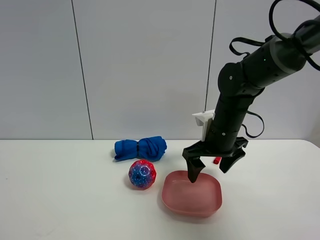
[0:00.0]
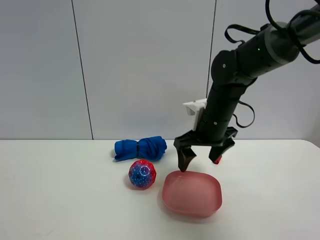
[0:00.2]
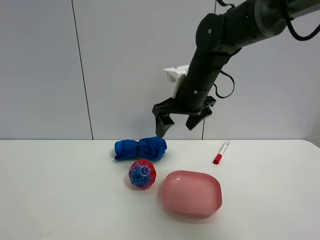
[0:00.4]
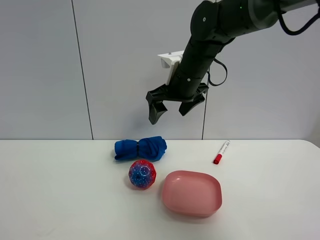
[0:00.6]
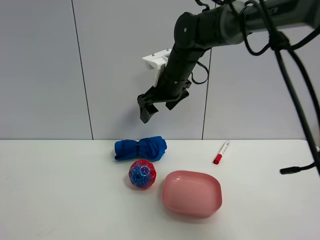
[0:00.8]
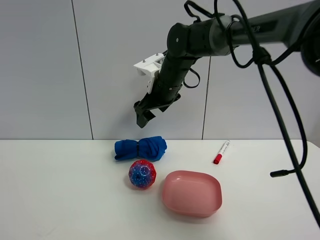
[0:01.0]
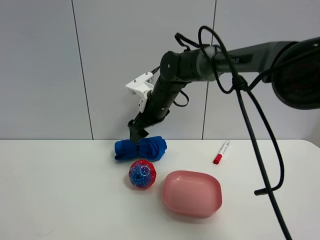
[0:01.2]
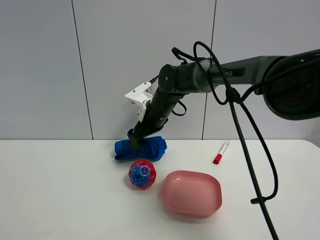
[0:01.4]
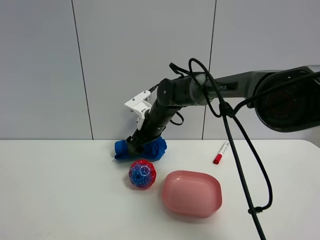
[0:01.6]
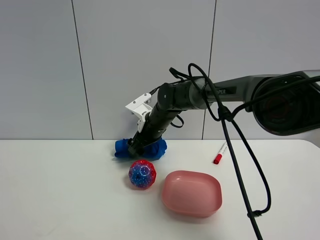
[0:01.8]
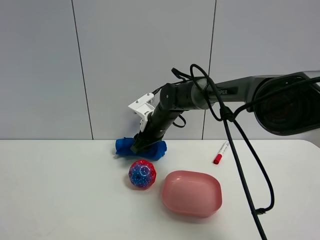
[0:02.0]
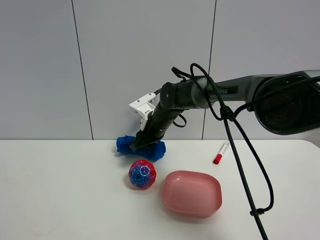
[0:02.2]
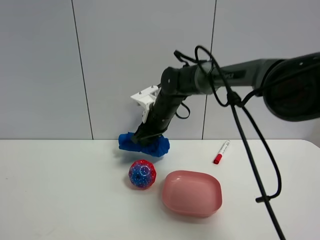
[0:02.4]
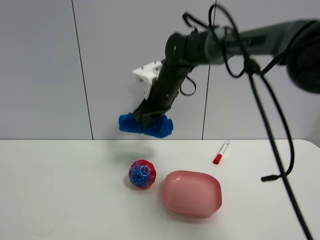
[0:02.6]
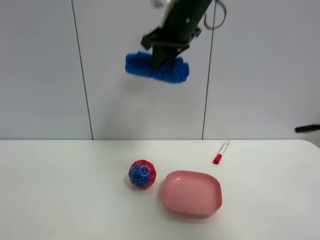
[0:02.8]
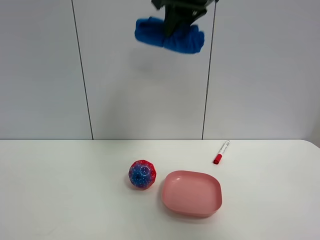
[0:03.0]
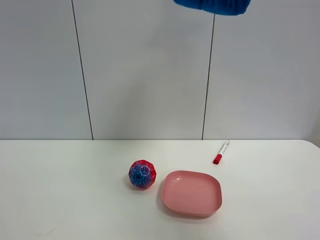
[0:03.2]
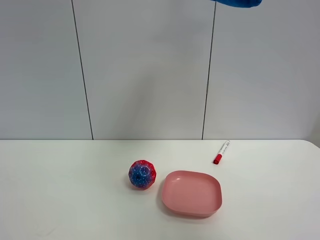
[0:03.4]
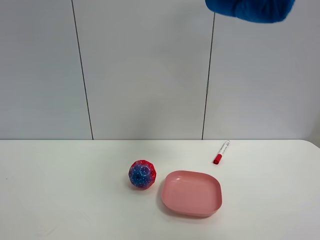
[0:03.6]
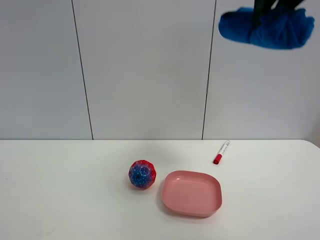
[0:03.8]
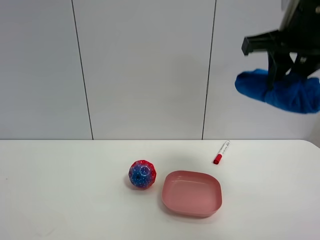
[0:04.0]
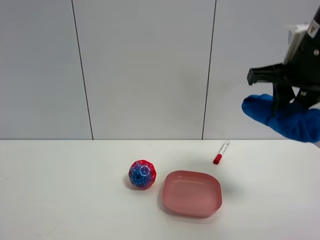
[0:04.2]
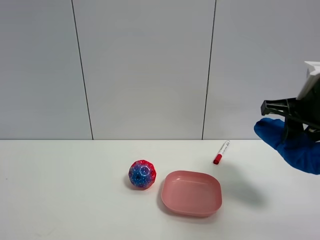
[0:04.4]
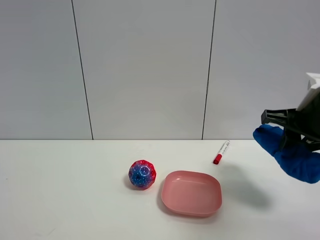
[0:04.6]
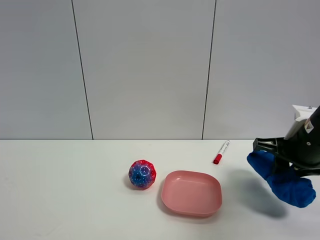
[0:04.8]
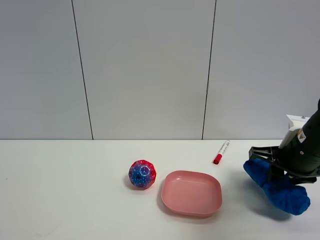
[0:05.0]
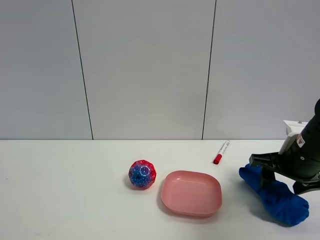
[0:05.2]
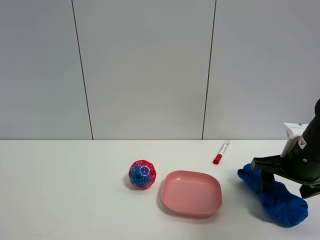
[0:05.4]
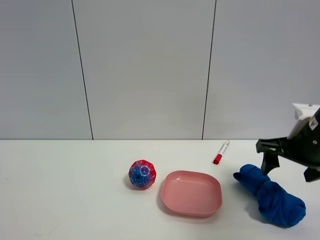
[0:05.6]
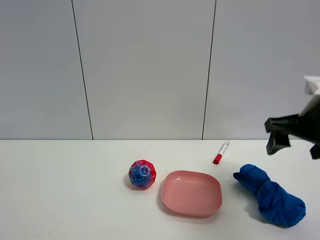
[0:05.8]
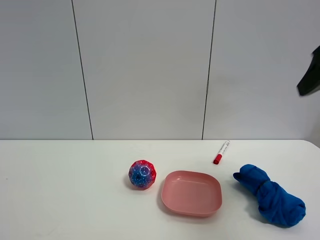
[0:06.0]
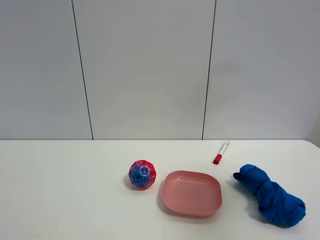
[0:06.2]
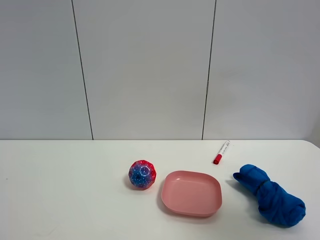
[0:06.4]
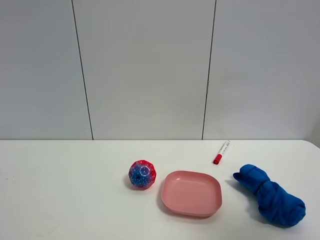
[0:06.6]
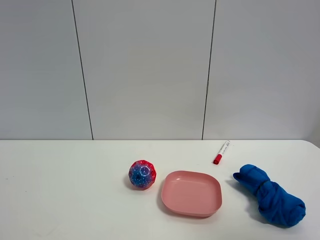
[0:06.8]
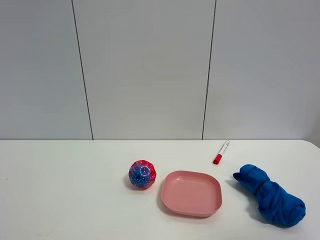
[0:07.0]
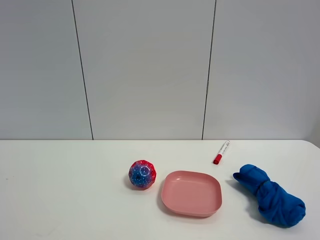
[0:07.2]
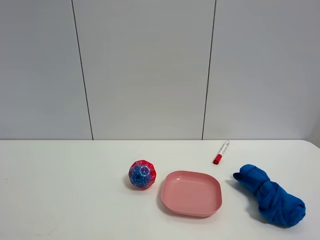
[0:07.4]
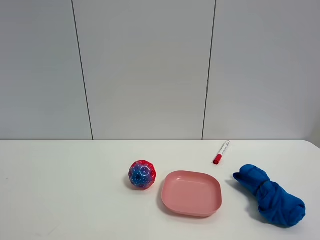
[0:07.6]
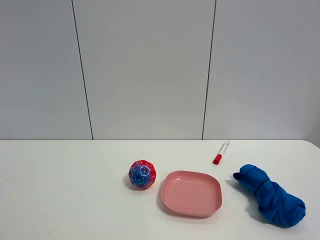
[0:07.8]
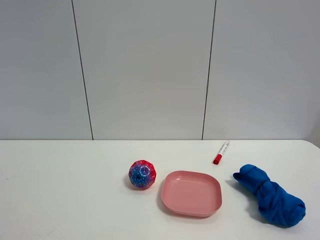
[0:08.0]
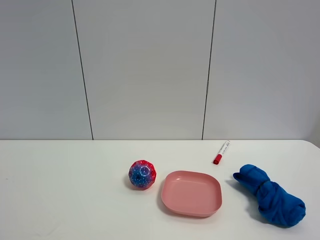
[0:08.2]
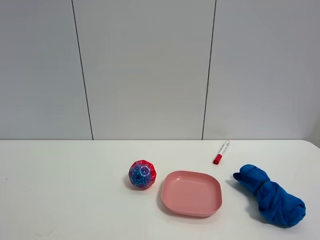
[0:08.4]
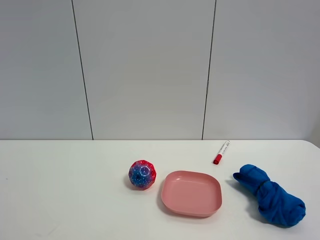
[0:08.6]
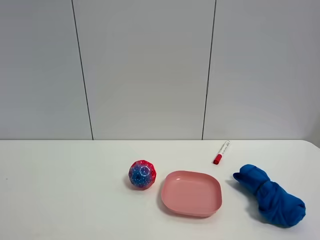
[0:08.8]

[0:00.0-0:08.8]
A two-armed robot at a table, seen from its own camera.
Task of the whole recording: the gripper move the object.
Step, 0.0 to 2.0 s: Grasp the blue towel with the right gripper.
Step, 2.2 to 5.6 s: Place the blue towel on the table with the right gripper.
0.0 to 1.4 s: The right gripper moves to the left and forward, about 15 cm.
1.4 to 3.0 s: The right gripper moves upward, some 30 cm, and closes up.
3.0 to 4.4 s: The right gripper heads downward, to the right and backward, covering some 25 cm.
4.4 to 5.8 s: The right gripper goes downward and returns, about 10 cm each way, and opens.
5.8 to 7.4 s: The right gripper moves backward, approximately 30 cm.
7.4 to 8.8 s: Both grippers stay put.

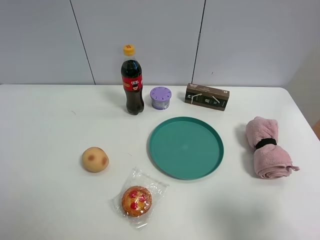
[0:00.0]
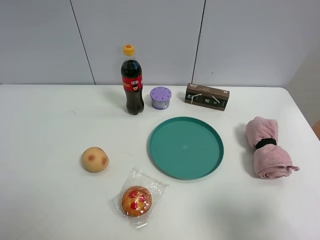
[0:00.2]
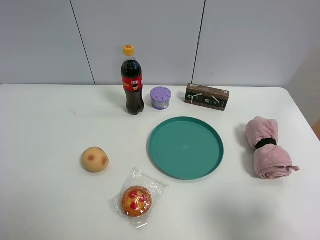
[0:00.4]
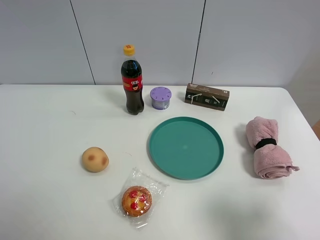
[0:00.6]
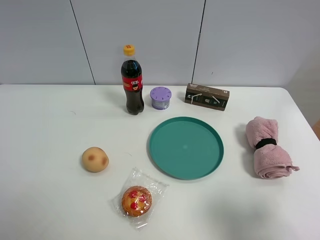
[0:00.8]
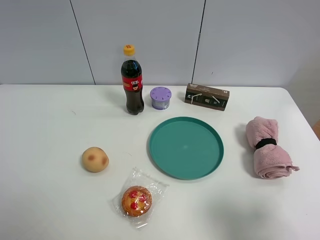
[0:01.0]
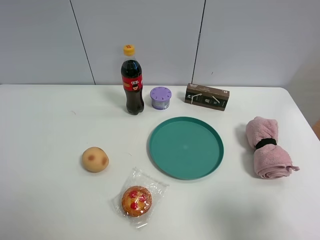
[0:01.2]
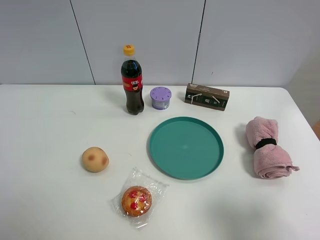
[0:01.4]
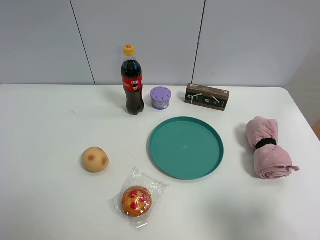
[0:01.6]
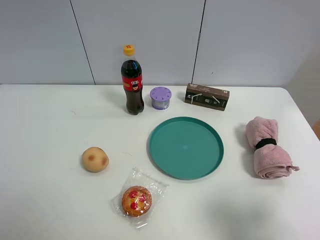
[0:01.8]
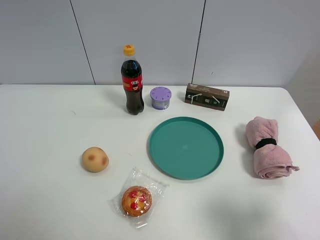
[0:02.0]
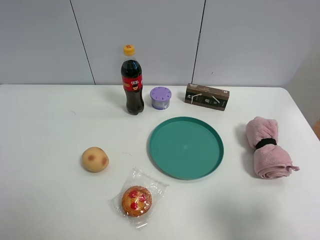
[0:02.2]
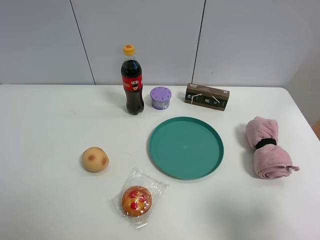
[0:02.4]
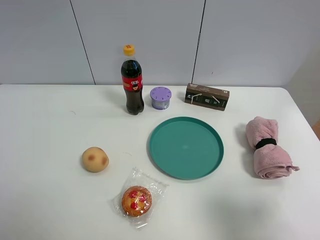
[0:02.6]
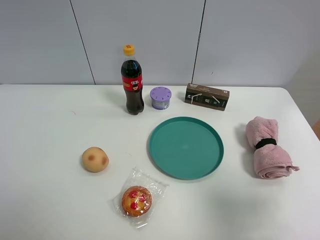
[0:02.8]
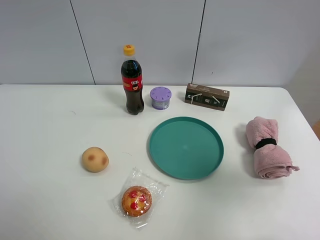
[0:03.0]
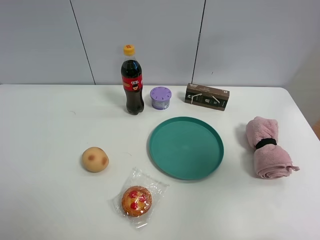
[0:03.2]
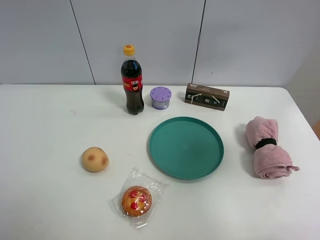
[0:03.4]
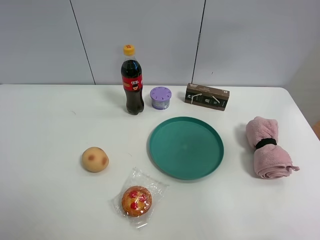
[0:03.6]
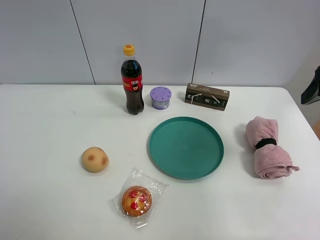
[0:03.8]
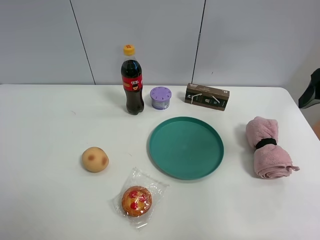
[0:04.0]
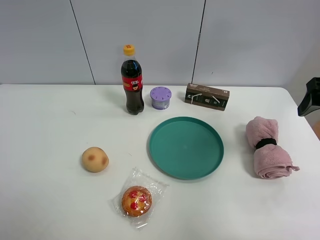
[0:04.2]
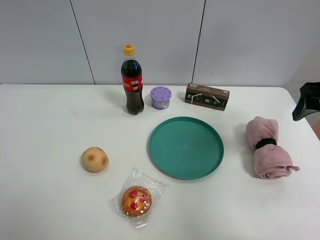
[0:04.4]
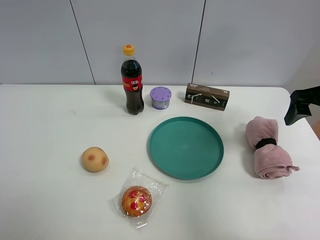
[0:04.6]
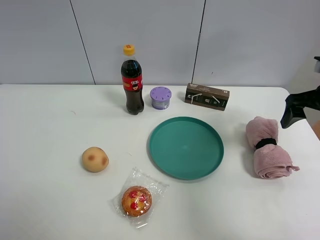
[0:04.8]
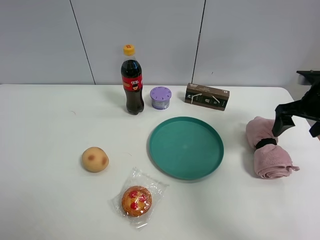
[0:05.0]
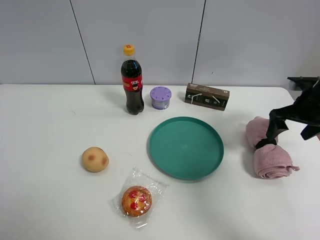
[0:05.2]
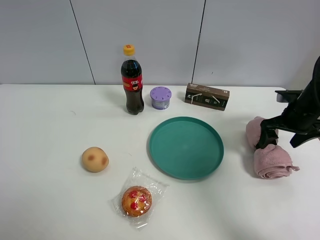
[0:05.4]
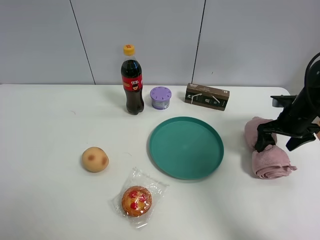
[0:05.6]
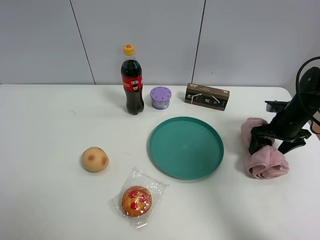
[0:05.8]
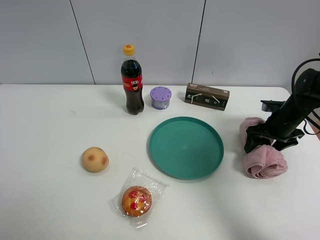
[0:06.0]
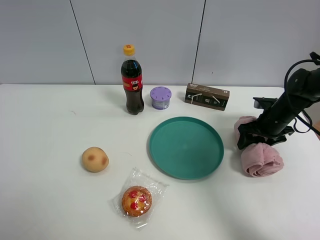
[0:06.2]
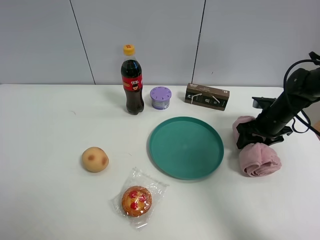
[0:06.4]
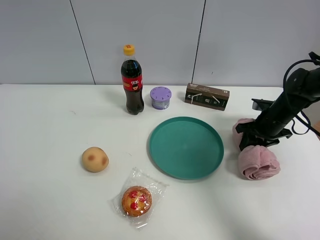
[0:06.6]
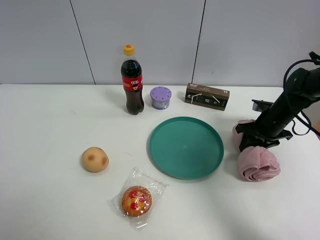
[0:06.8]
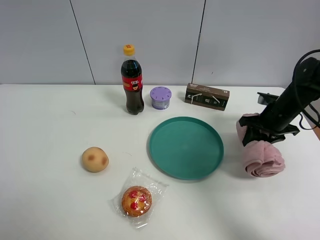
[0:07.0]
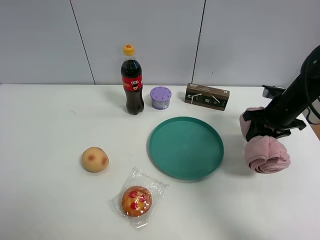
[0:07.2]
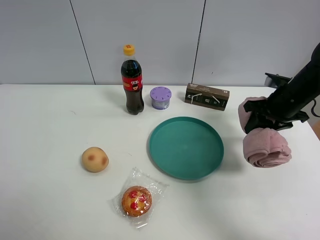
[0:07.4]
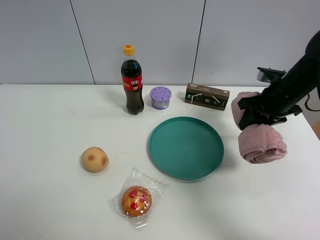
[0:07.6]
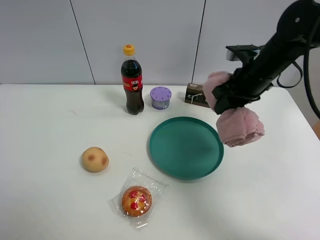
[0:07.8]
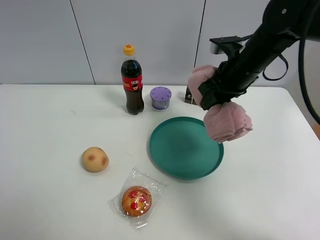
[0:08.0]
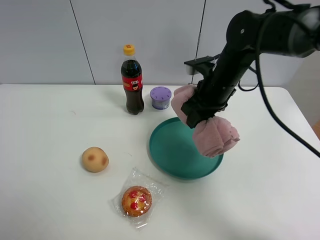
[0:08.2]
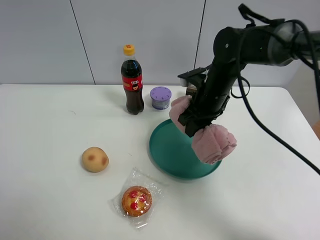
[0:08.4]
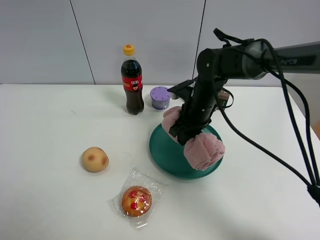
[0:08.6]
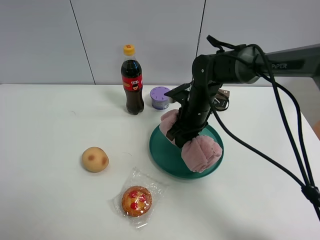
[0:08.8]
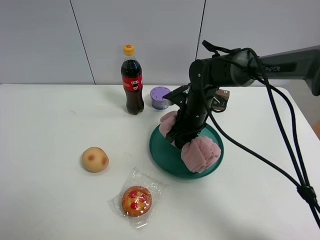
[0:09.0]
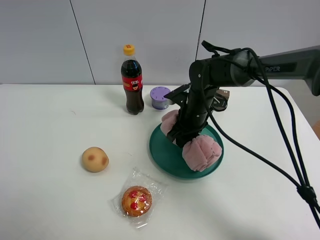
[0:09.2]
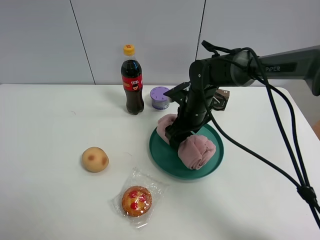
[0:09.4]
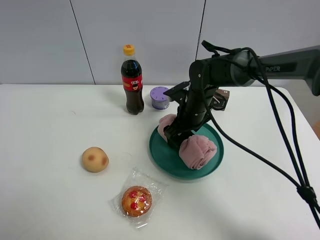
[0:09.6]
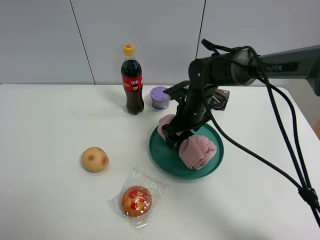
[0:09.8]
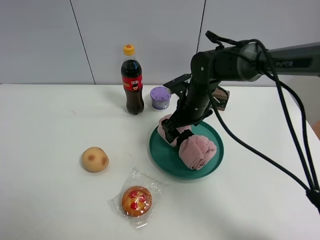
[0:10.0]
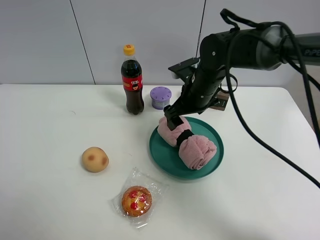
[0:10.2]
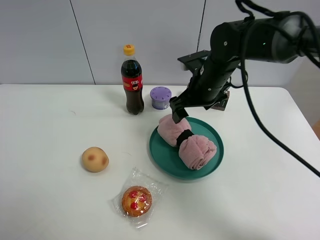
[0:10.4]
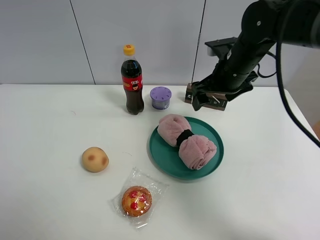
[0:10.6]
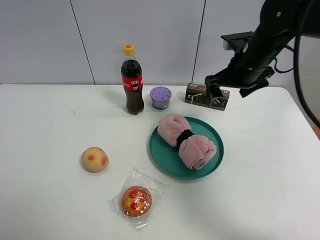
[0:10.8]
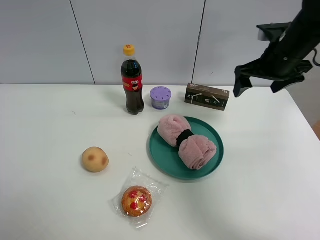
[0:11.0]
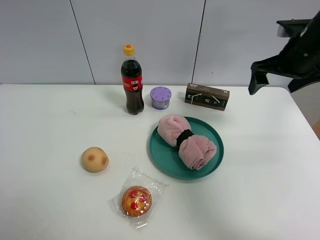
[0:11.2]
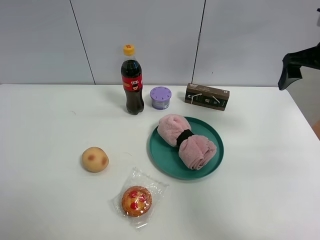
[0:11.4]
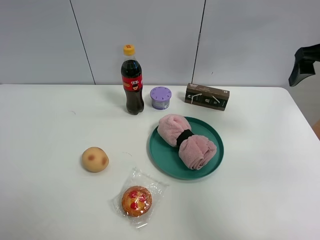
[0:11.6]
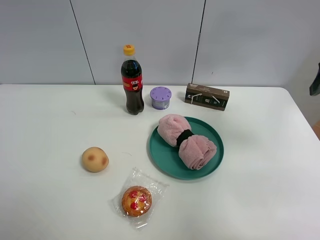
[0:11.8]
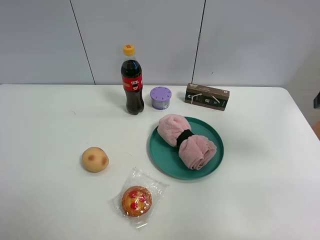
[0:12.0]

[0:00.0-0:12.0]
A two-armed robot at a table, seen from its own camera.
Task of the whole recording: the gripper move the object.
Step, 0.0 to 6.6 s: Grasp the pink towel with the right gripper.
Step, 6.8 to 9.4 s: Place the pink towel into the green bowl with the right gripper.
0.0 to 1.6 s: Both grippers stay about where they are.
1.6 to 3.0 s: The right gripper is displaced upward and forward by approximately 10 cm.
3.0 to 4.4 s: The right gripper shifts about 20 cm forward.
4.4 to 6.0 s: The right gripper is displaced downward and forward by roughly 20 cm.
6.0 to 7.6 s: The right gripper shifts some 15 cm upward and to the left, and closes its fingers.
7.6 to 9.0 s: The right gripper is displaced to the left and downward by some 20 cm.
9.0 to 10.4 s: The right gripper shifts about 10 cm upward, and opens its fingers.
10.4 to 12.0 s: The right gripper travels to the right, backward and upward by some 30 cm.

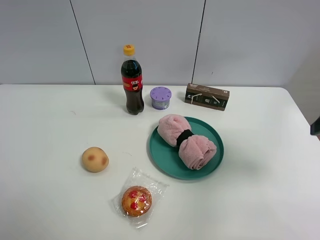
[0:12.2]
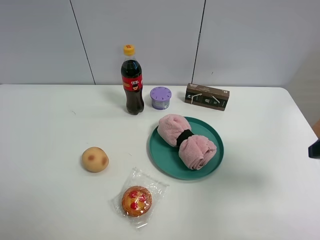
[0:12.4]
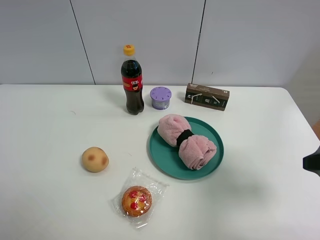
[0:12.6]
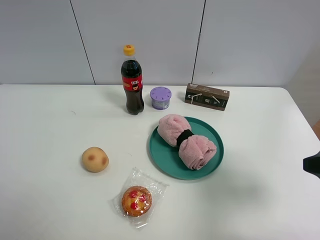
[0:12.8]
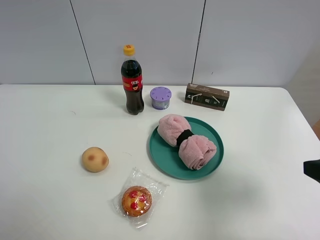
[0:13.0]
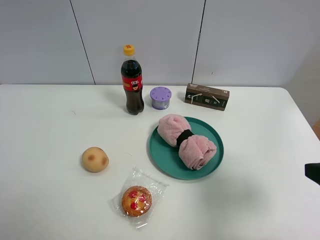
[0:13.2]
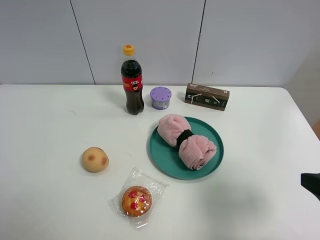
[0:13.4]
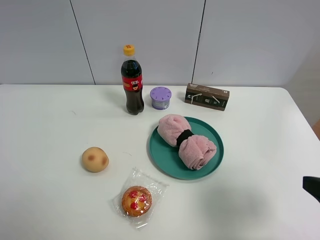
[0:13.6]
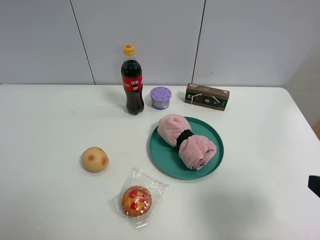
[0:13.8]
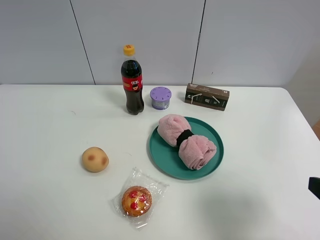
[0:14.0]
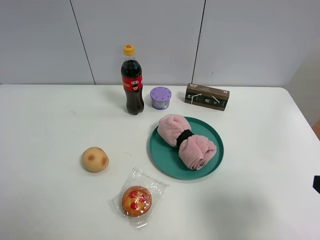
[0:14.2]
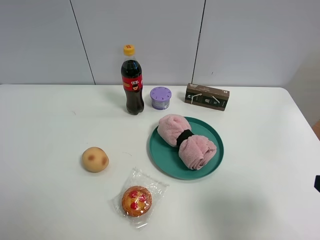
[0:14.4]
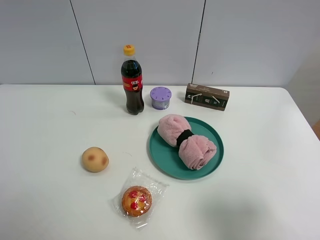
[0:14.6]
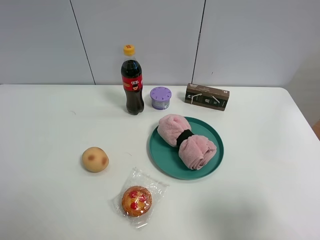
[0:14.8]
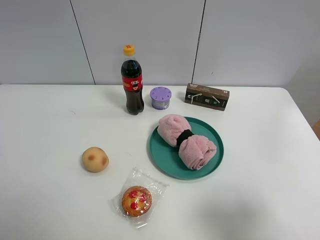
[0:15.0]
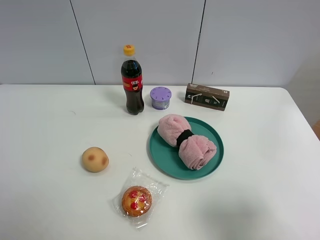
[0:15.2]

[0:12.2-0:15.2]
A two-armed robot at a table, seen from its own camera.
Task of the whole recording: the gripper move the object.
12.2 to 13.8 s: The right gripper shifts some 10 cm backward.
